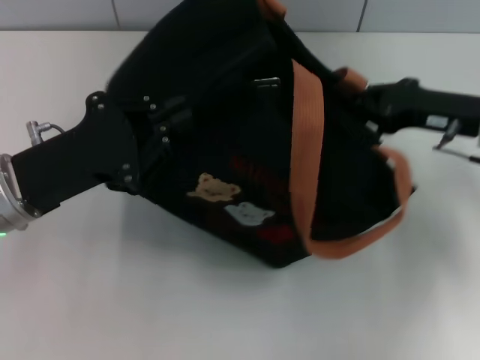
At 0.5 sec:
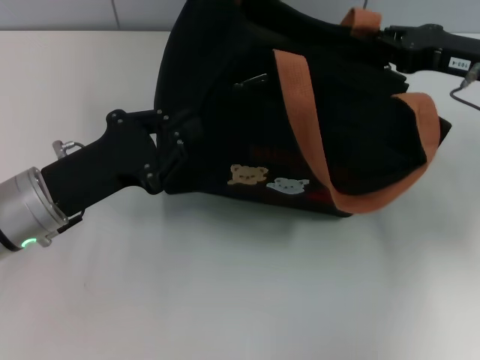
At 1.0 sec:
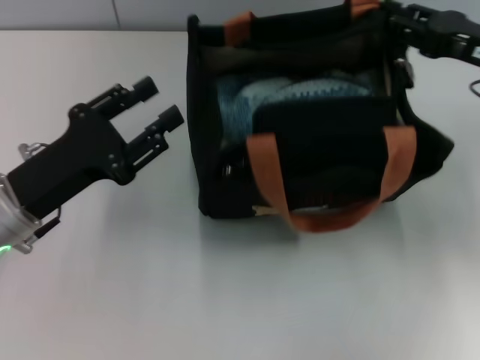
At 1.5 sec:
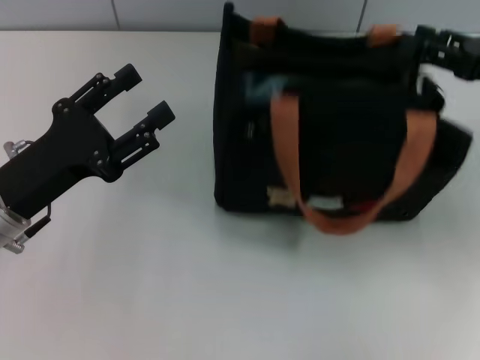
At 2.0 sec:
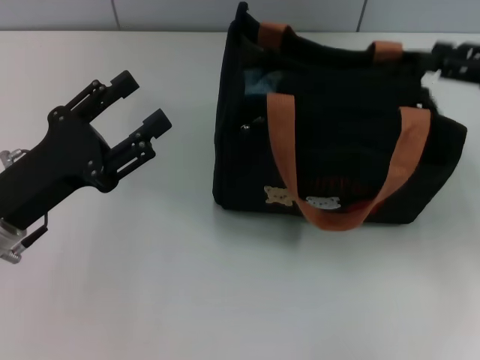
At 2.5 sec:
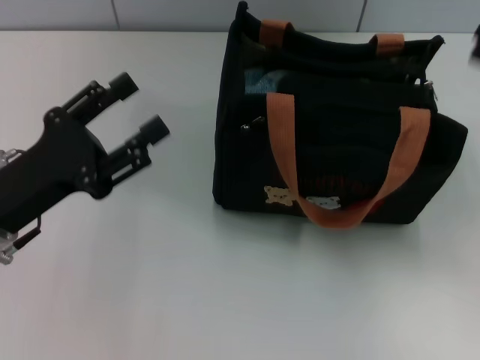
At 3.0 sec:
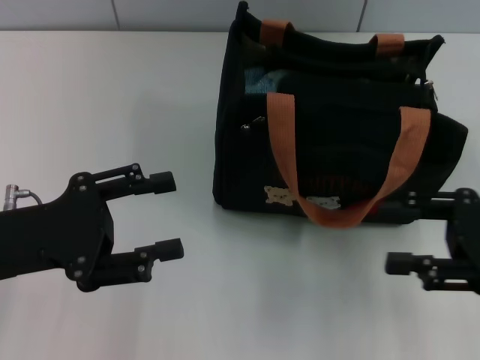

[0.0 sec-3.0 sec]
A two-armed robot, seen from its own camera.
0.0 sec to 1.5 sec: The right gripper shifts approximately 5 cm to the right, and opens its fingers. The left gripper opens.
1.5 sec to 3.0 sec: The right gripper travels backward by roughly 10 cm.

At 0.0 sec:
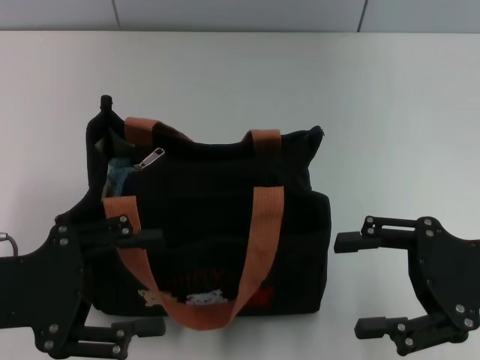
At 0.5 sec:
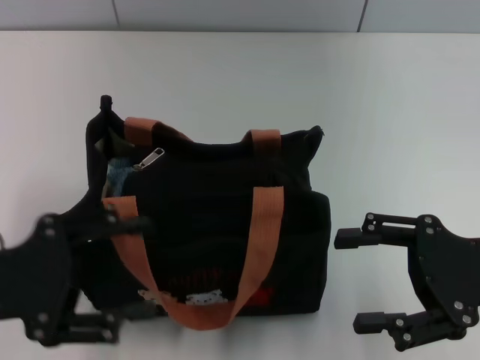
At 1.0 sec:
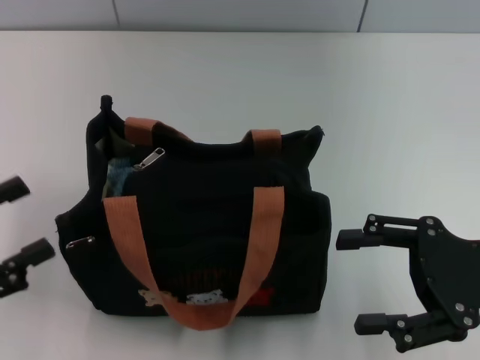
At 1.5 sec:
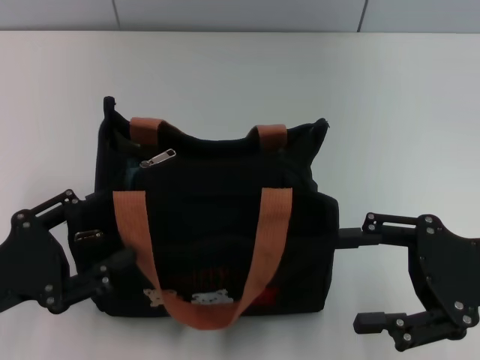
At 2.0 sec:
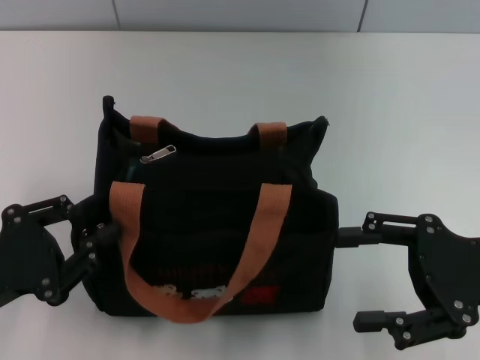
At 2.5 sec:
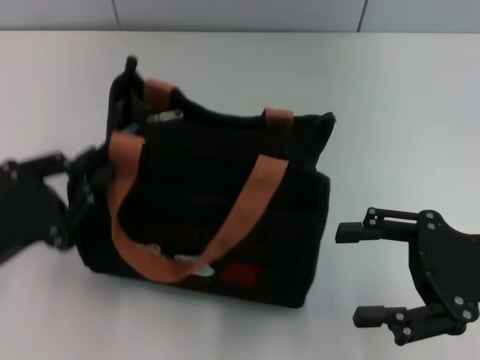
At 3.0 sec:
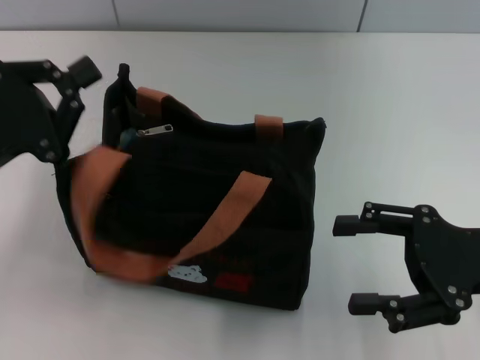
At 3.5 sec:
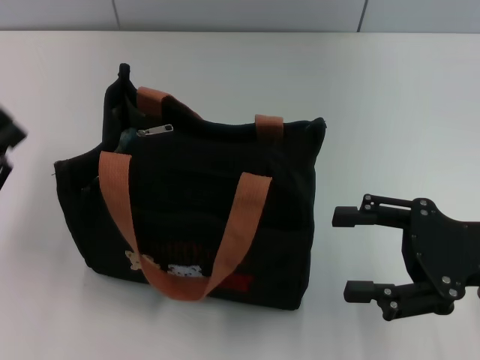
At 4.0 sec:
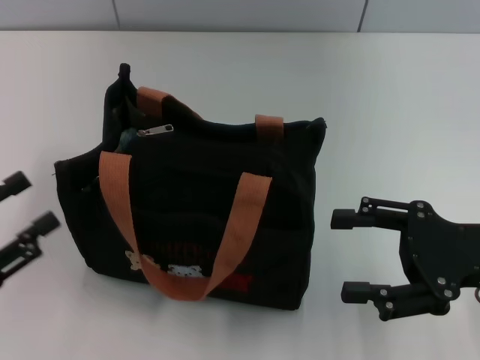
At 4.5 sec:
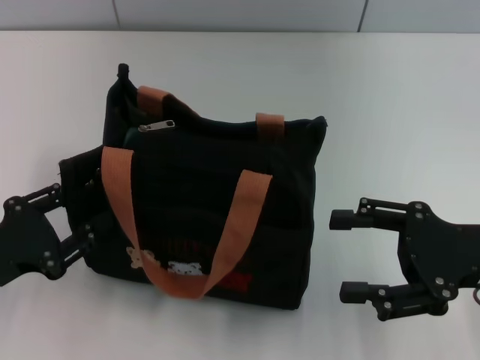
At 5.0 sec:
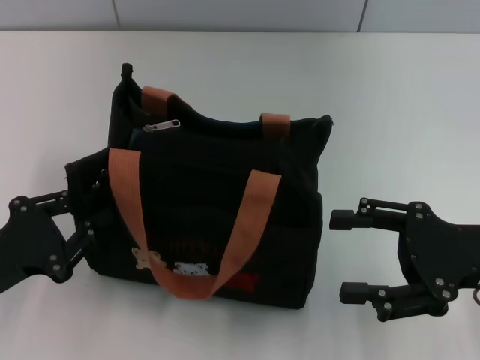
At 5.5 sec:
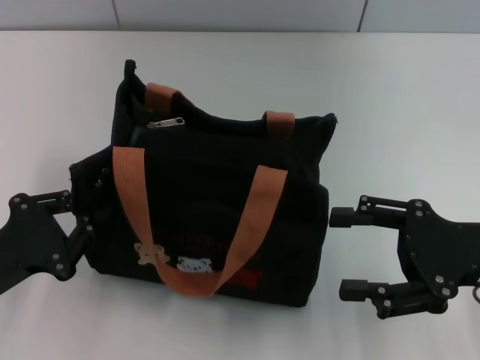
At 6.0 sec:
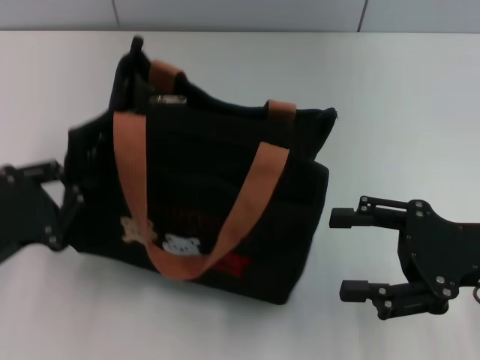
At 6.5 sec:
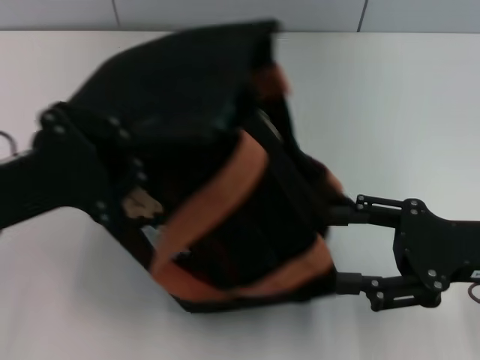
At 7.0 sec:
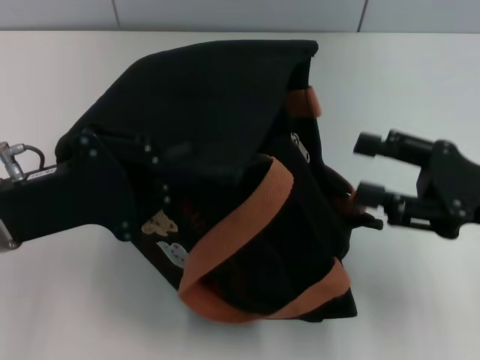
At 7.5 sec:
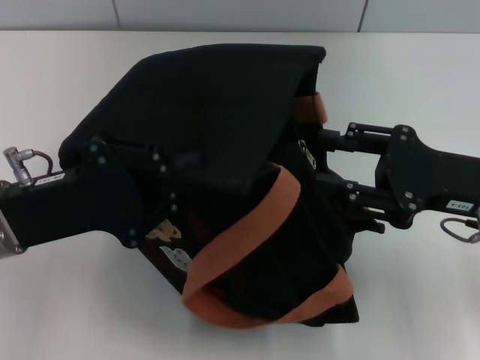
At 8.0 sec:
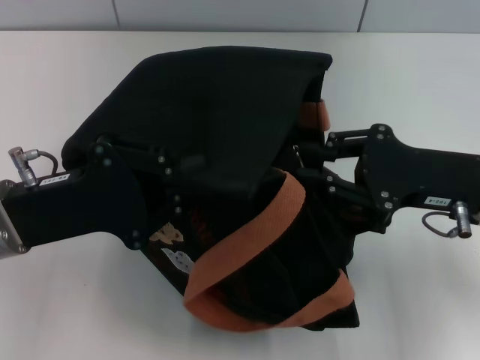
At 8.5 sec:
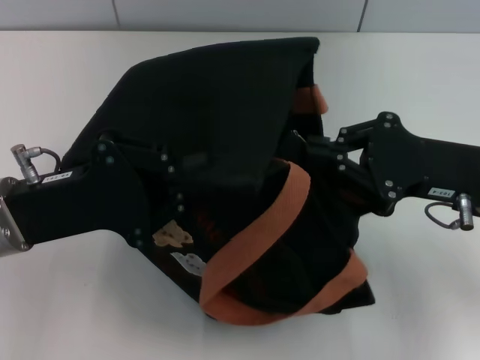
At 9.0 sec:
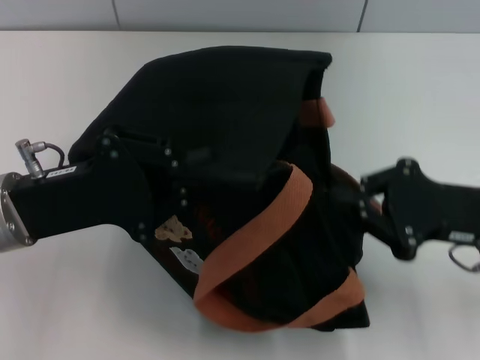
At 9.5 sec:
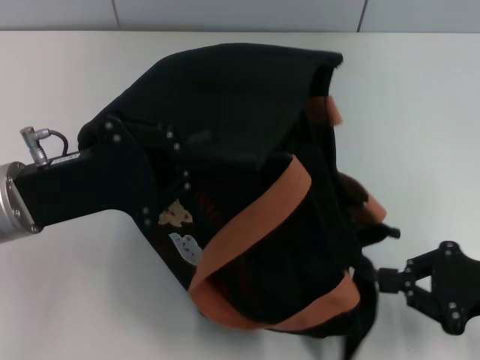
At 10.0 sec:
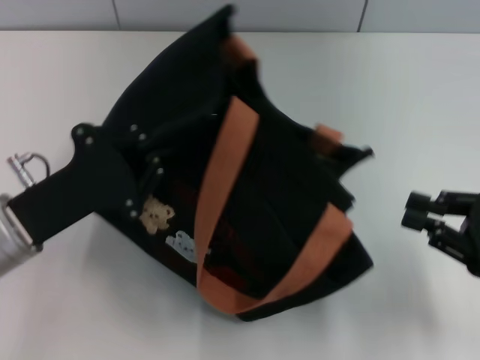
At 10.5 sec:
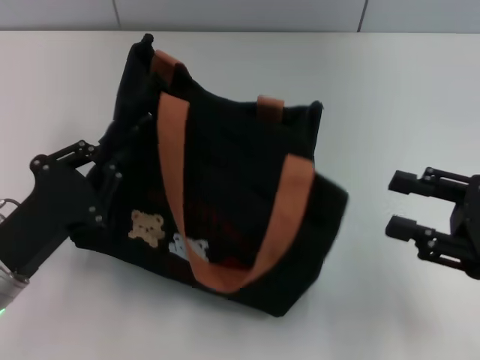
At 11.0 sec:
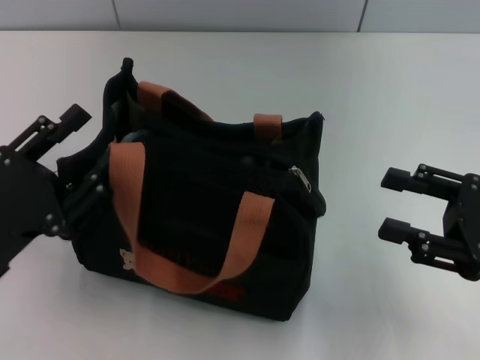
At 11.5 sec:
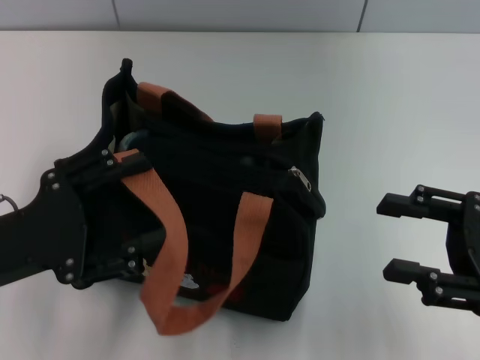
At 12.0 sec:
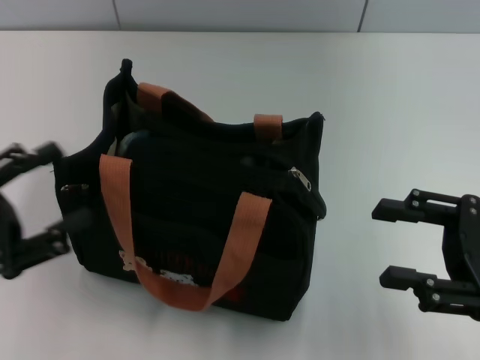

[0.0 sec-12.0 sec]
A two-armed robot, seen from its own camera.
Step, 0.0 sec to 9.5 sec: Pull open the zipper with your right hand.
Step, 10.0 sec to 10.5 sec: Grab the bag with your left hand.
0.0 sec to 2.0 sec: The left gripper moves downward, roughly 5 cm, and closes up.
2.0 sec to 4.0 sec: The left gripper travels forward and back again, about 10 cm each way, and closes, then reopens.
4.0 sec to 6.0 sec: The left gripper moves about 5 cm, and closes up.
6.0 sec to 8.0 sec: The left gripper moves to the right, forward and upward, some 10 cm. The right gripper ends up about 5 cm from where it was, and closes up.
8.0 sec to 10.0 sec: The right gripper goes about 10 cm to the right and backward, and closes.
10.0 sec to 12.0 sec: The left gripper travels to the left and backward by about 10 cm, and opens its fingers, while the right gripper opens up.
